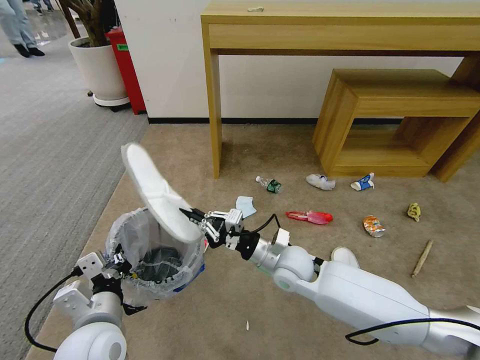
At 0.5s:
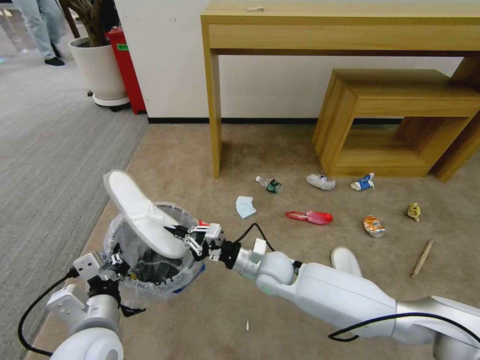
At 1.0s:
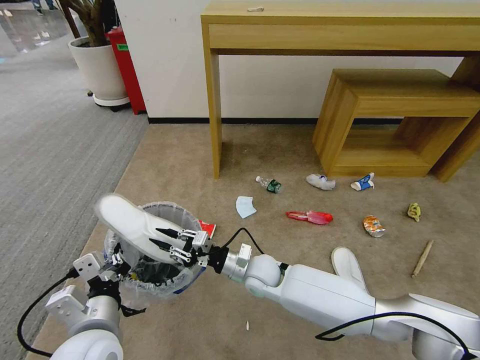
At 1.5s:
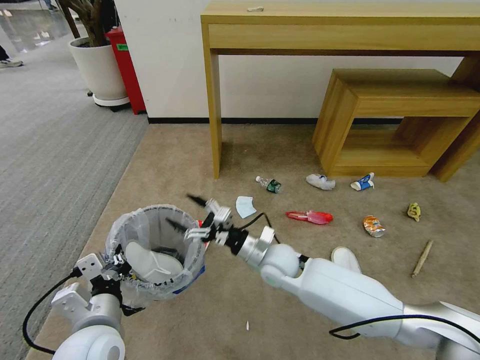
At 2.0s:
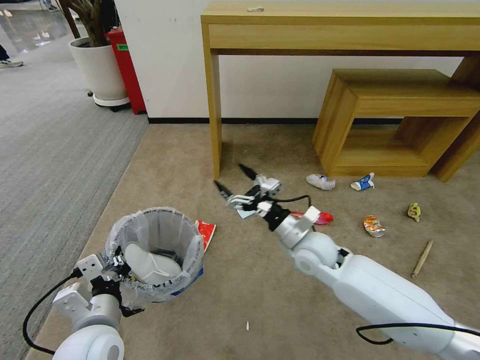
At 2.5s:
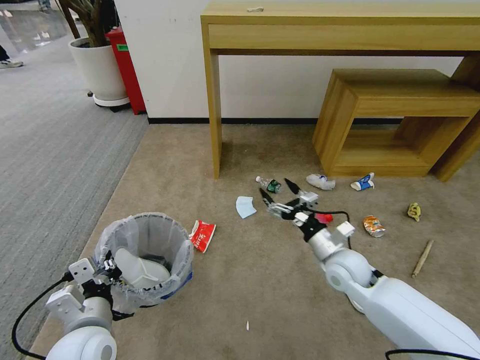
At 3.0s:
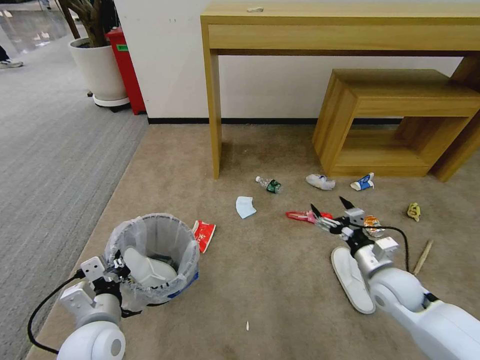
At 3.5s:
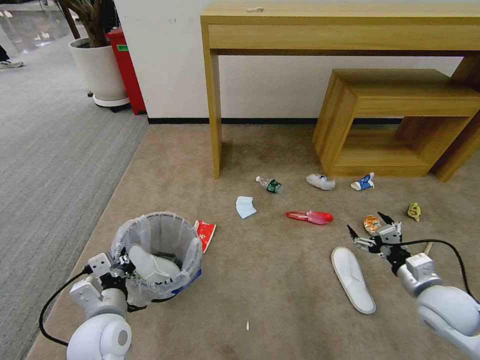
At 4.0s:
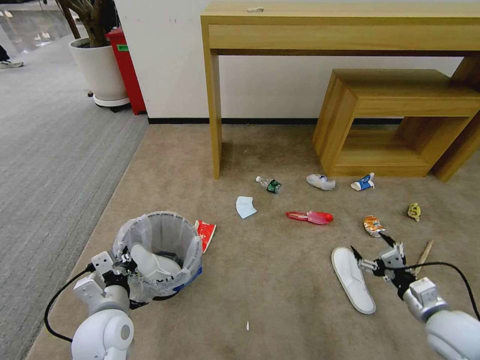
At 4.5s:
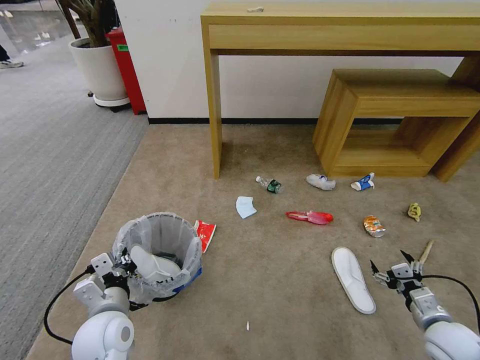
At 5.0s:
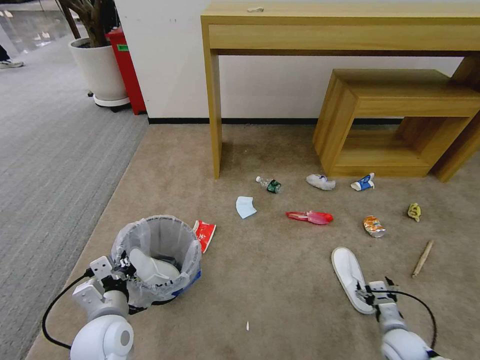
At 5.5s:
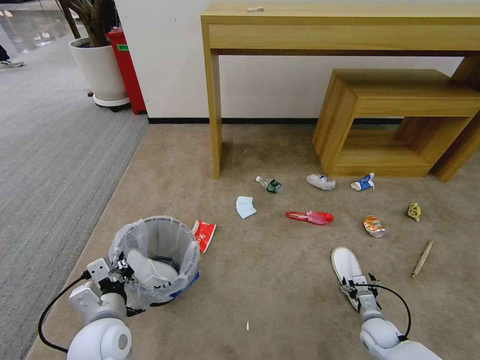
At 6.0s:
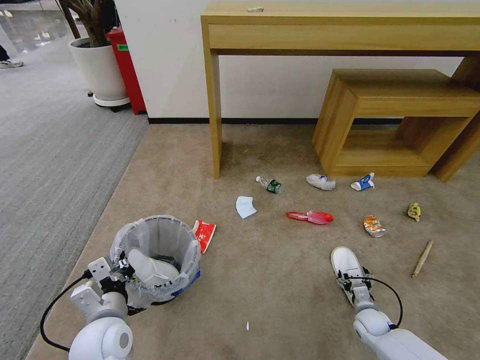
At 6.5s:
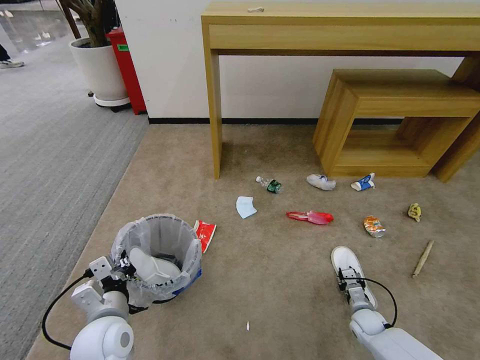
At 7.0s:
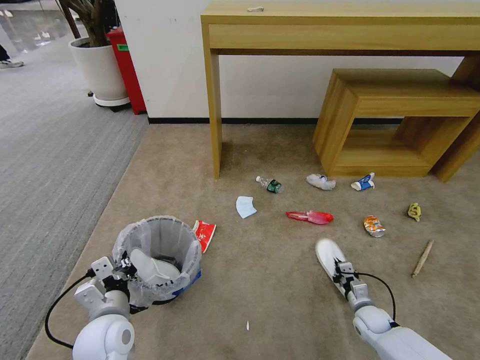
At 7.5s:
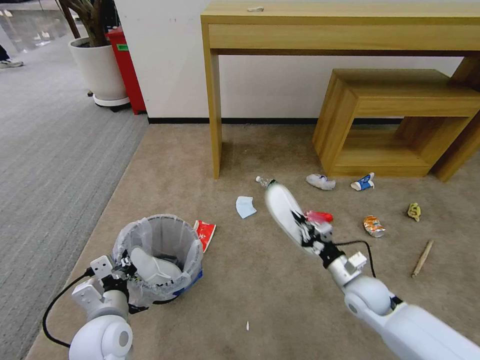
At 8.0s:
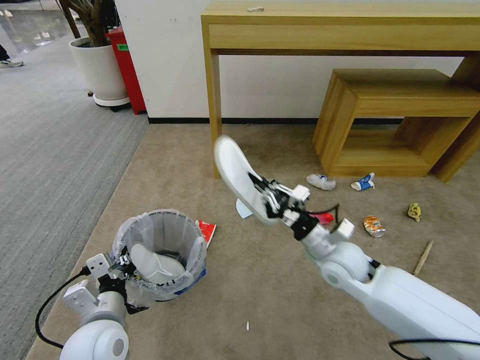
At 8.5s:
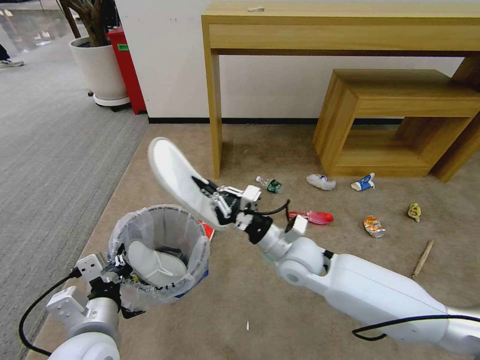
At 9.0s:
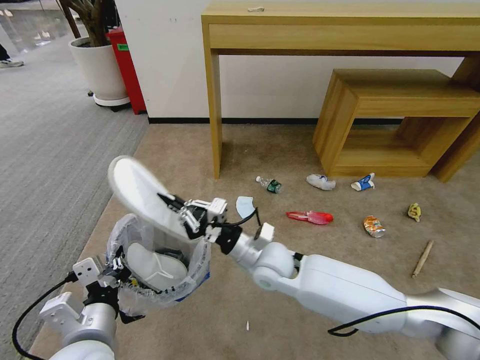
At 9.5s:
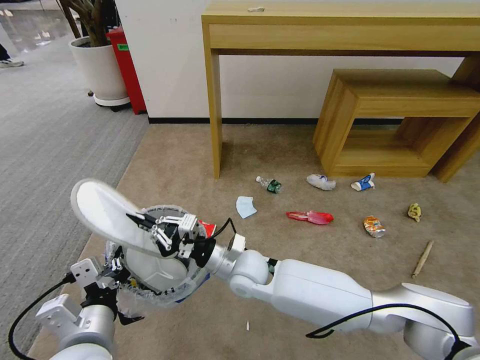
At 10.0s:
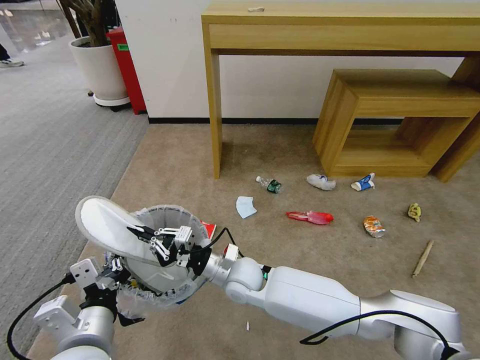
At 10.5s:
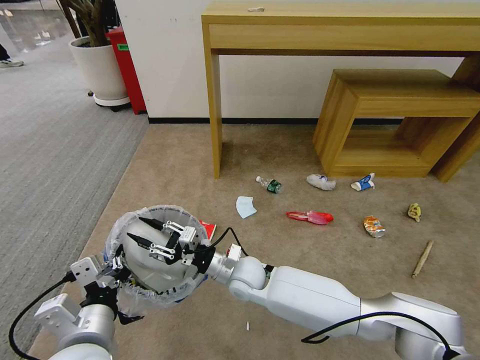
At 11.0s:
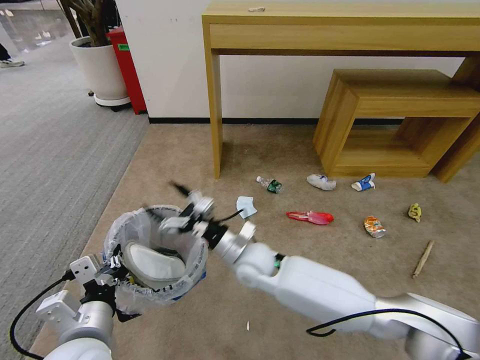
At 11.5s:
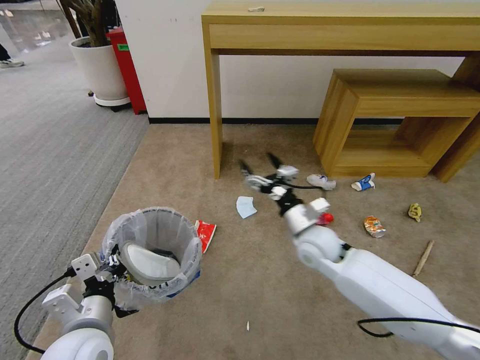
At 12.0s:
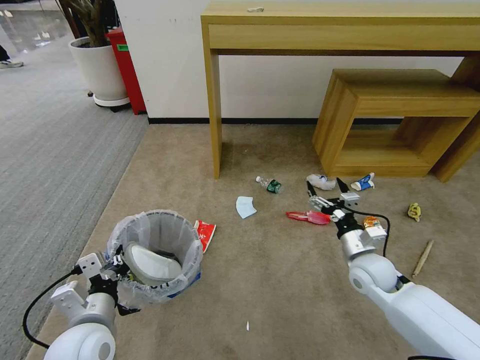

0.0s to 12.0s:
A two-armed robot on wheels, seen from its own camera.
Task of the whole recording: Pick up the trash bin and place the garbage on the floor into it.
0.0s to 2.0s: The right gripper is displaced to the right by about 5 cm, and opens.
2.0s to 4.0s: The right gripper is displaced to the right and backward by about 30 cm, while the left gripper moves some 5 cm.
4.0s to 6.0s: The right gripper shifts approximately 20 cm downward.
6.0s to 8.0s: The right gripper shifts about 35 cm upward and to the left, and closes up.
8.0s to 10.0s: The right gripper heads to the left, covering approximately 20 cm, while the left gripper moves upward and backward, approximately 10 cm.
10.0s to 12.0s: The right gripper shifts about 30 cm to the right, and opens up; the left gripper moves downward, some 5 cm.

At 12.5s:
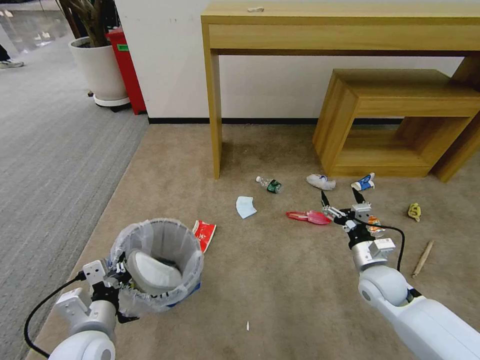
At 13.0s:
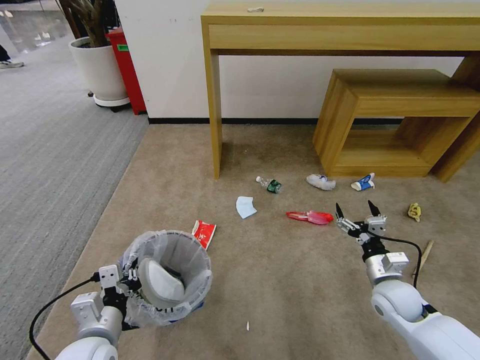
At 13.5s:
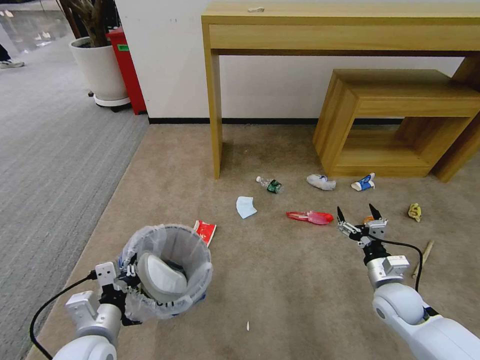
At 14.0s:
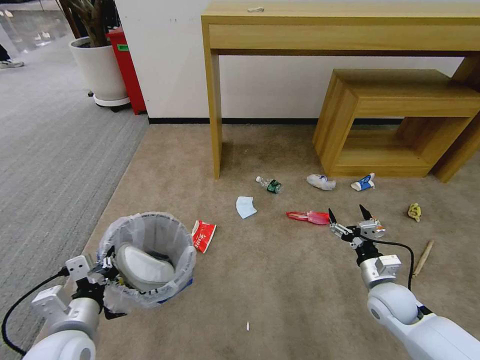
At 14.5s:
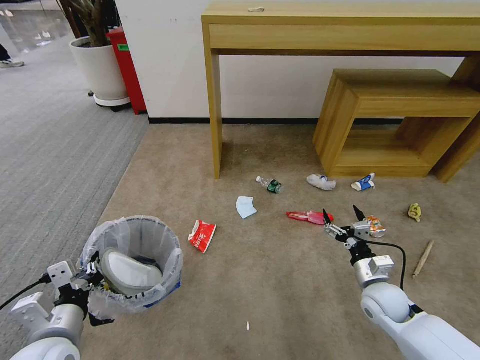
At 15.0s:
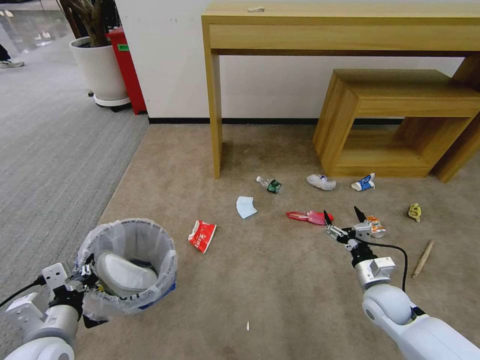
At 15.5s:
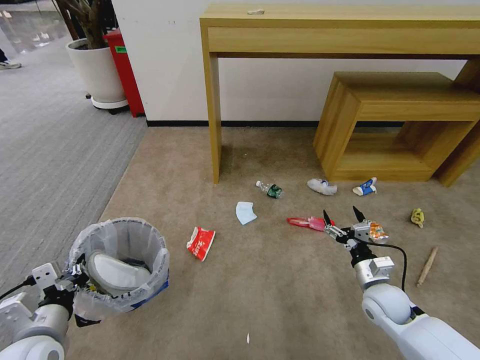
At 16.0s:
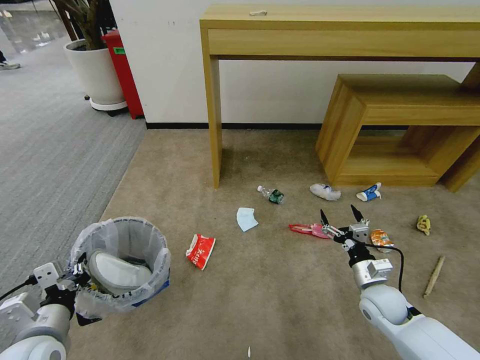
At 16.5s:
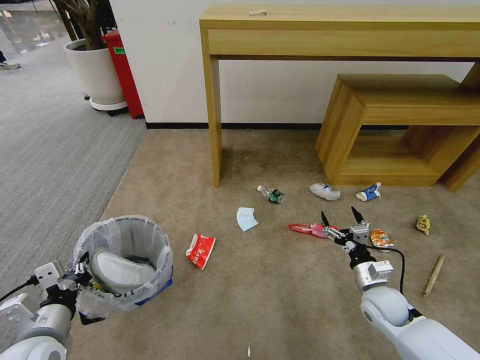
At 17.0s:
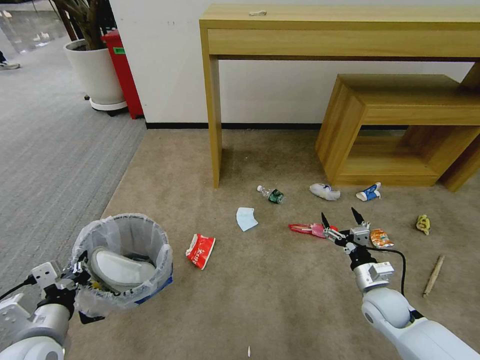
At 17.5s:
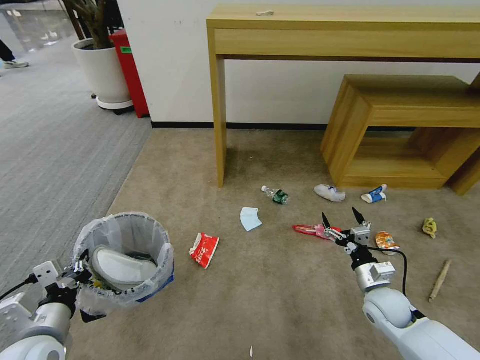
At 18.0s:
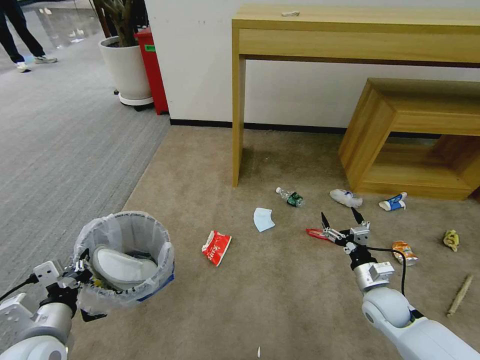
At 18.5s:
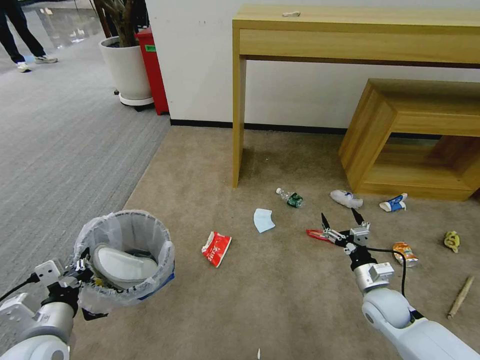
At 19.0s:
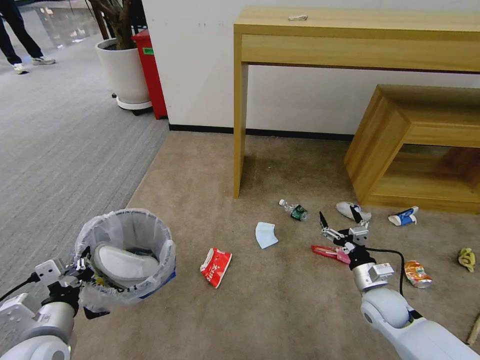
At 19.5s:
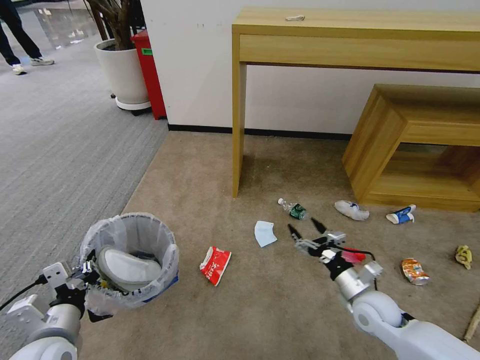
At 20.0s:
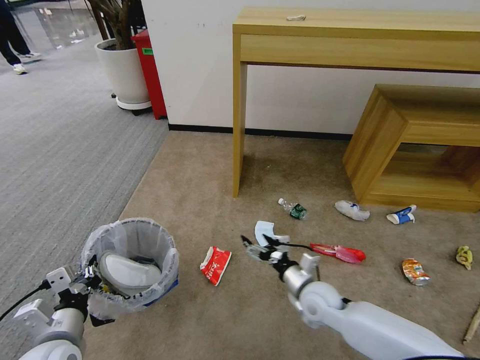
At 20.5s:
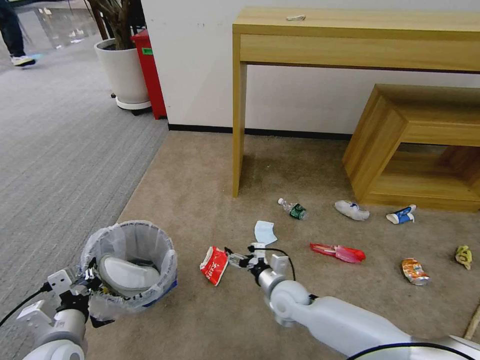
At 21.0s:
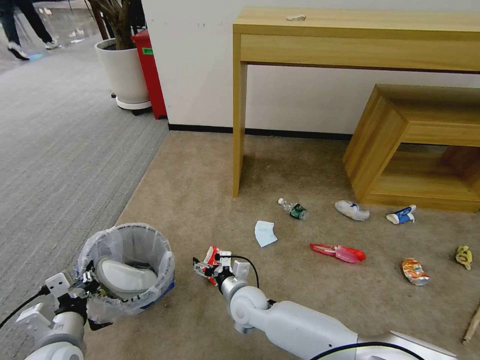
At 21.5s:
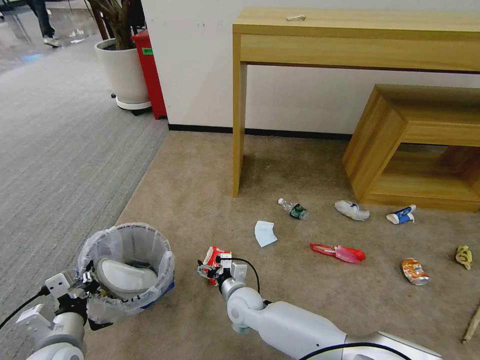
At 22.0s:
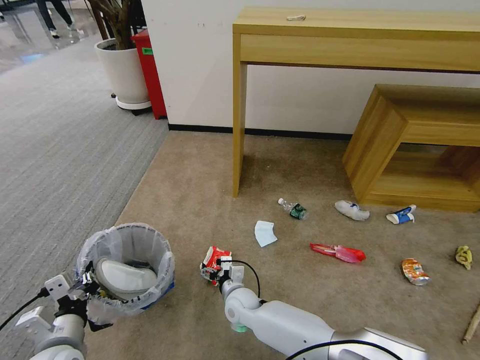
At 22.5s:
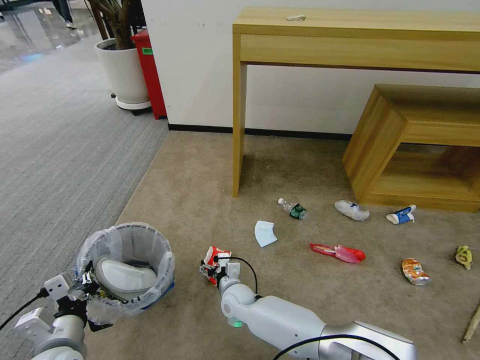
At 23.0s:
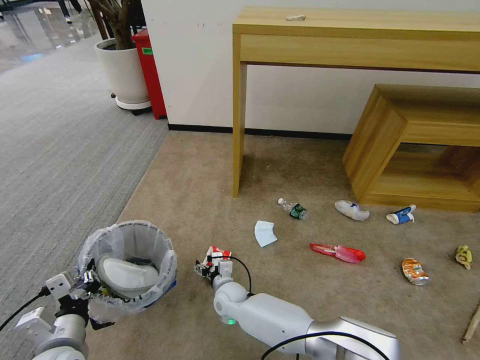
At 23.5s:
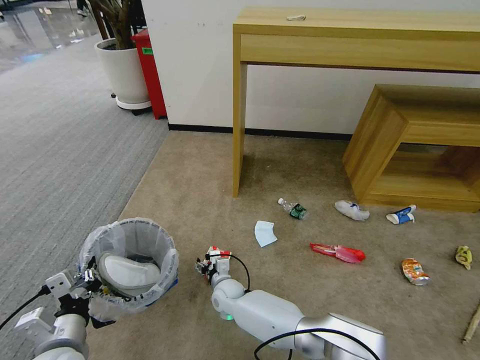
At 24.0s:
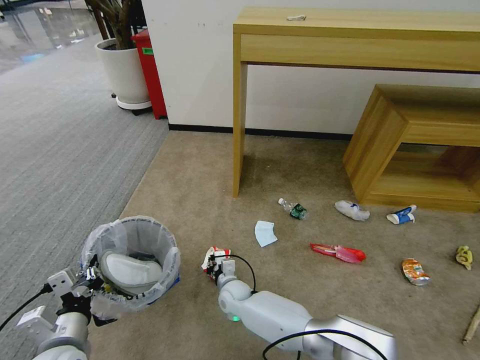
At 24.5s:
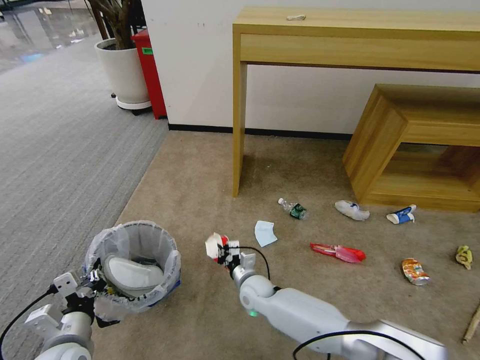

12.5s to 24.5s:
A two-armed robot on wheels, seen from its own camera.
Task of the whole recording: Pick up the trash bin and place the garbage on the floor into it.
12.5s to 14.5s: The left gripper ends up some 5 cm from where it was.
18.5s to 20.5s: The right gripper heads to the left, covering approximately 25 cm.
20.5s to 22.5s: The right gripper moves to the left and downward, roughly 15 cm.
22.5s to 24.5s: The right gripper is displaced to the right by roughly 5 cm, and closes its fingers.

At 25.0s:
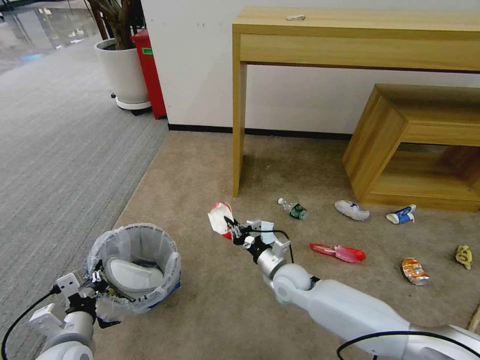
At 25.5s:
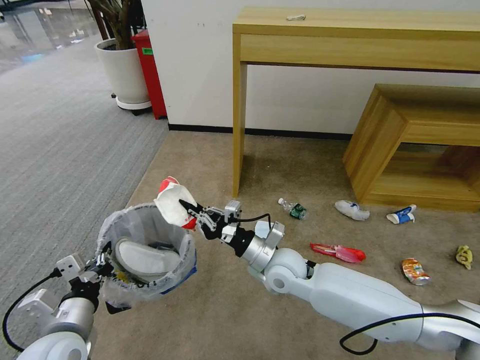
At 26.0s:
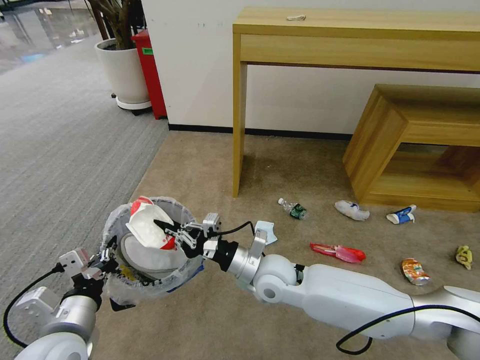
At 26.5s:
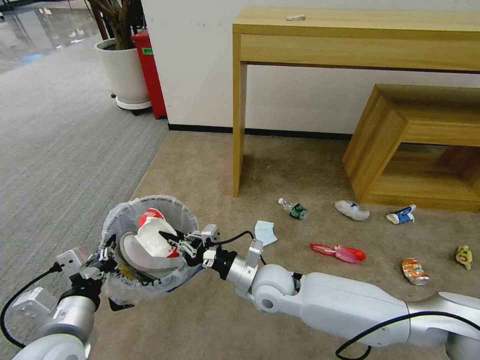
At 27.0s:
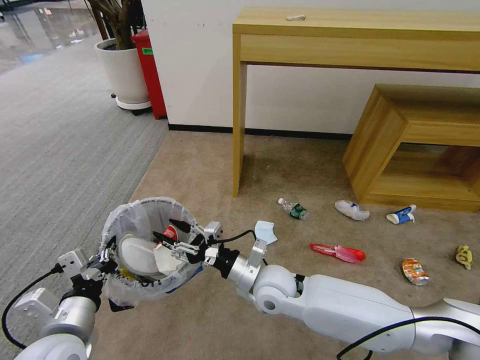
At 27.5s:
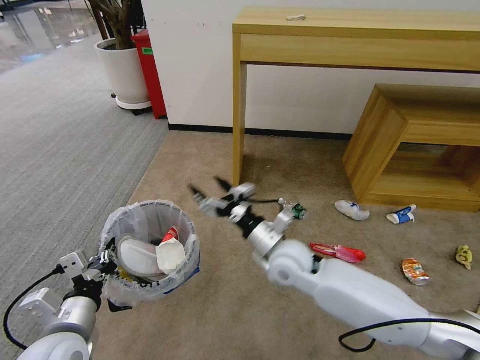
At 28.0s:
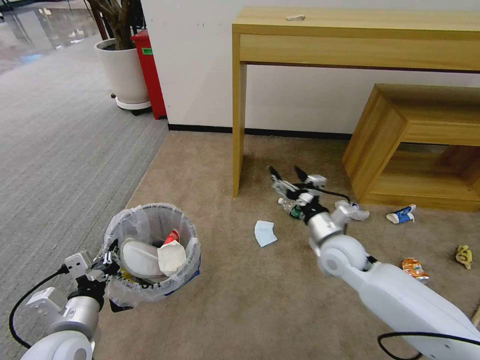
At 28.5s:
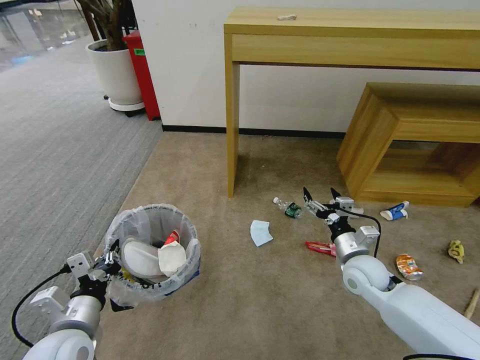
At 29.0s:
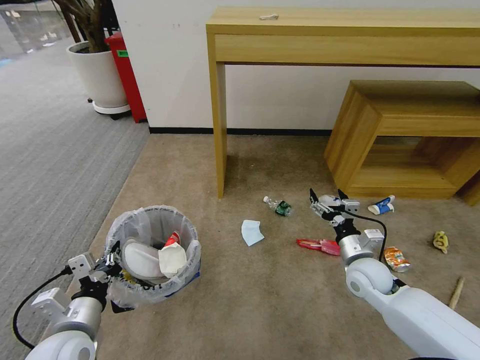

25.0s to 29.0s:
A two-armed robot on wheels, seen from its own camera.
Task of the whole recording: Pick up the trash bin and place the garbage on the floor into it.
25.0s to 27.0s: The right gripper heads upward and to the left, covering some 10 cm, and opens up. The left gripper moves upward, roughly 10 cm.
27.0s to 29.0s: The right gripper travels to the right by some 25 cm, and opens.
